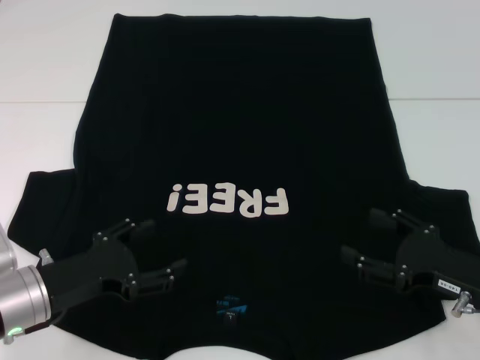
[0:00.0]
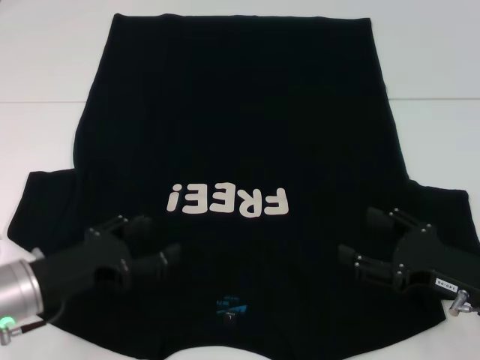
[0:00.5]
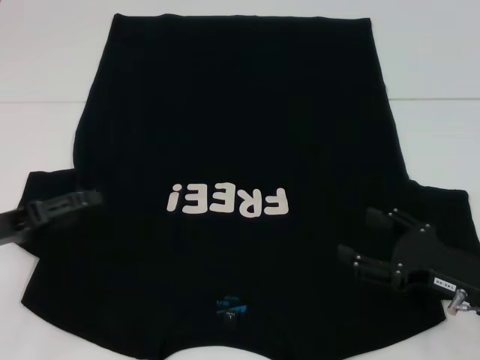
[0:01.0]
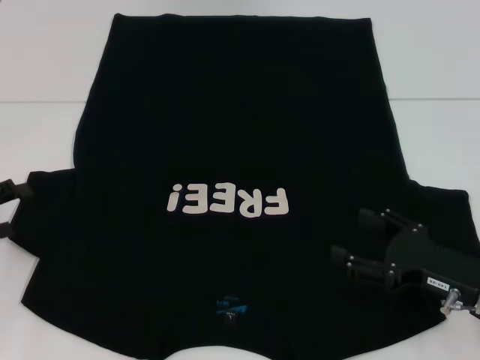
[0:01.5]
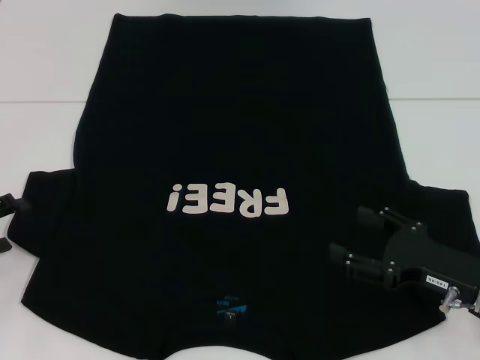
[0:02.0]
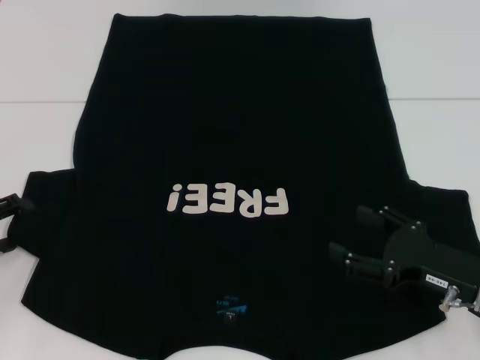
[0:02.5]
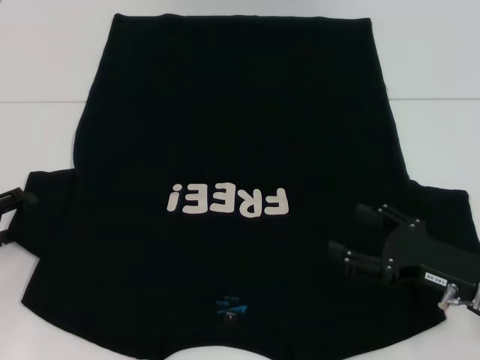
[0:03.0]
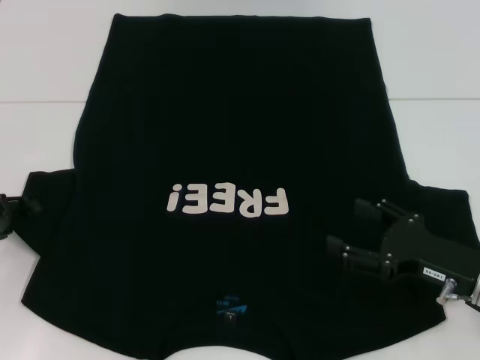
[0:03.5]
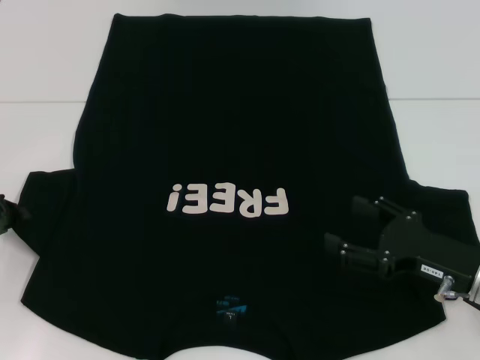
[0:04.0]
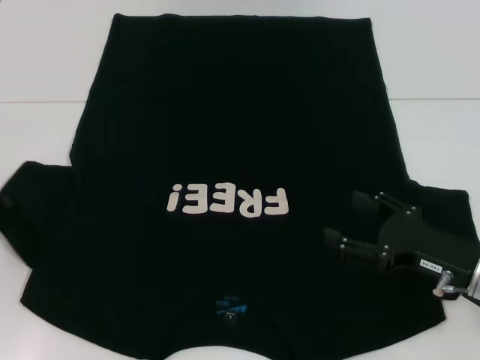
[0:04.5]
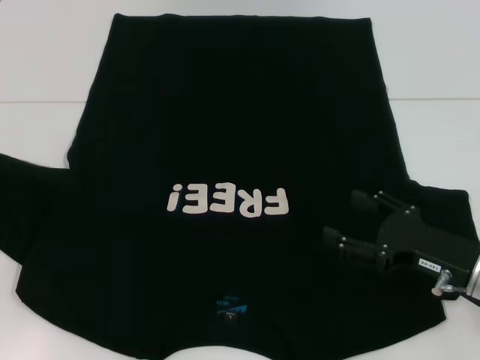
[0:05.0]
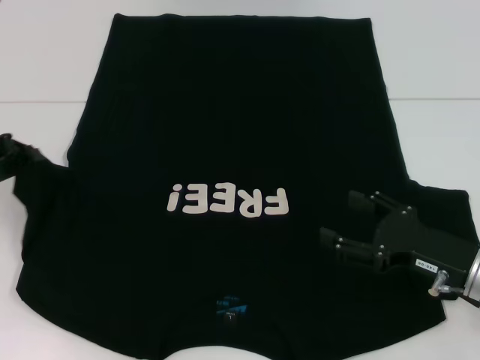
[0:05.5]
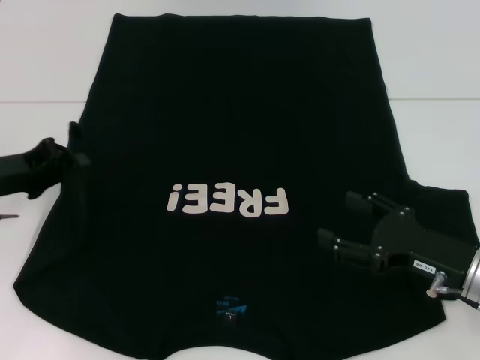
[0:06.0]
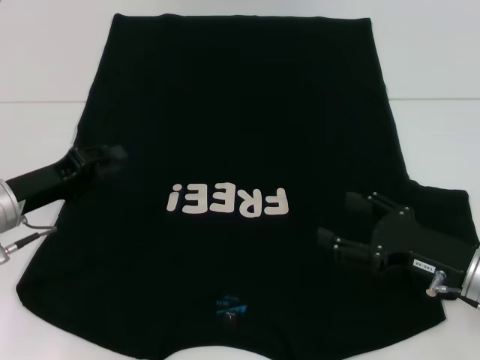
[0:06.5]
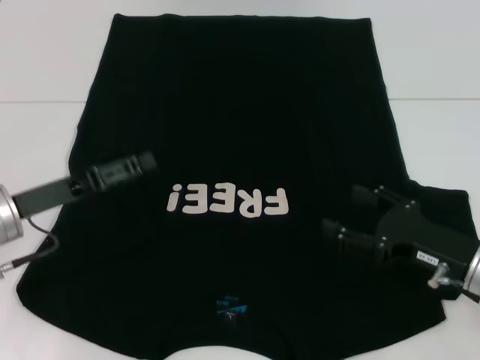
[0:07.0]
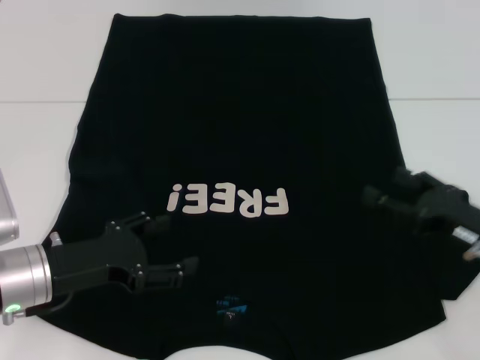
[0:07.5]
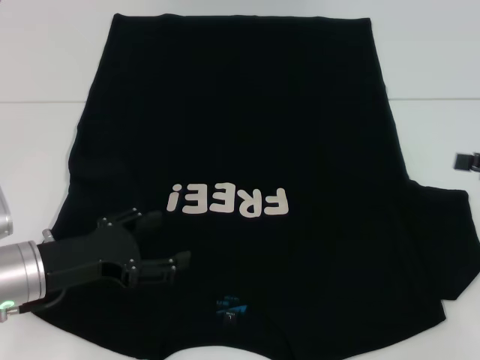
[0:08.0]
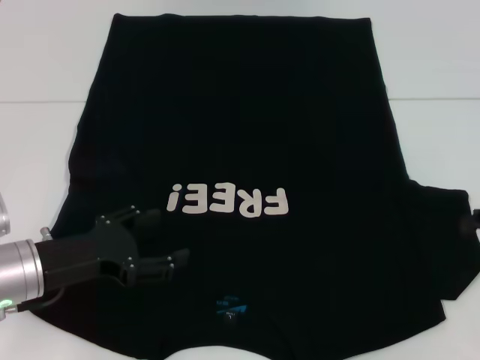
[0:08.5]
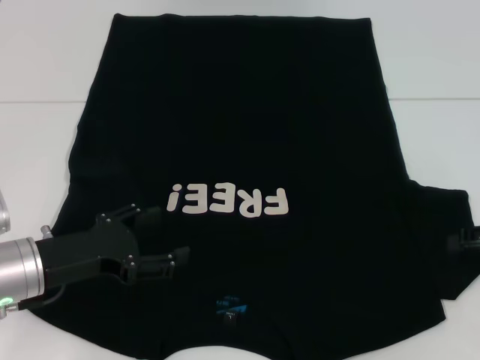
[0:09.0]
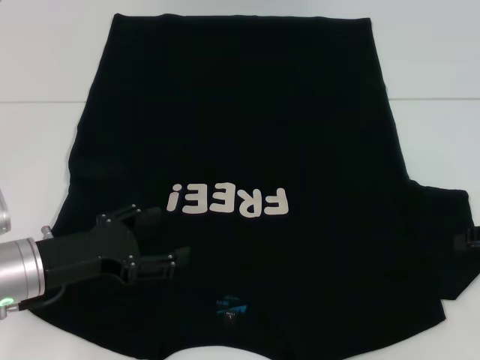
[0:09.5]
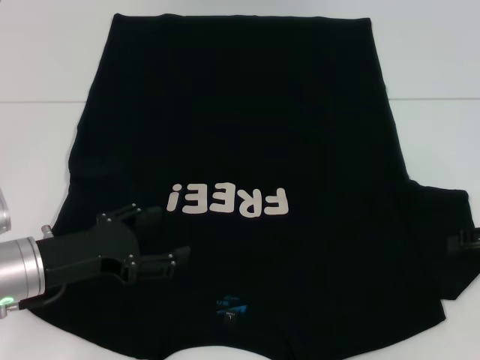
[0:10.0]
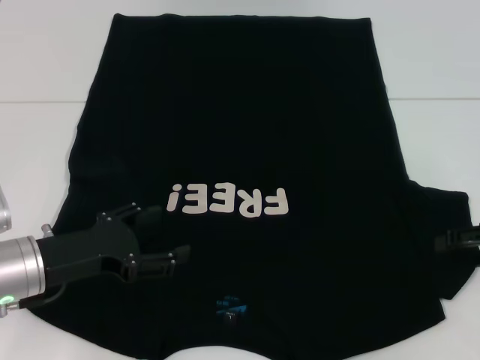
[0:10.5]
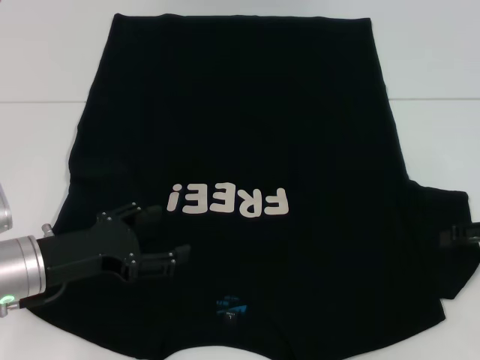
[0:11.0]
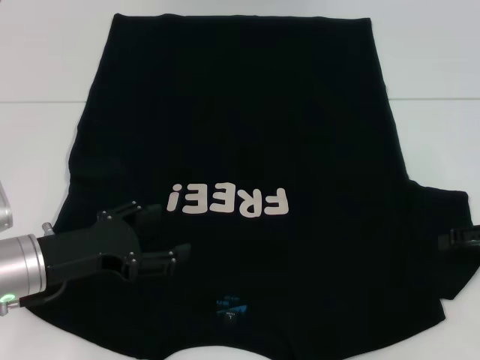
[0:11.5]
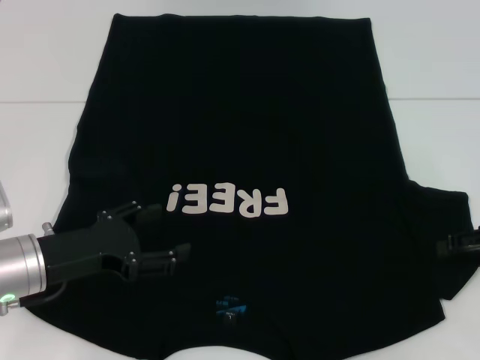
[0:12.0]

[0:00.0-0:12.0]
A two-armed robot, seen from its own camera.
Step, 0:00.0 to 0:06.5: Fold the bottom left sleeve with your left hand.
0:00.0 to 0:02.0: The left gripper travels to the left by approximately 15 cm.
0:04.0 to 0:06.0: The left gripper changes place by some 5 cm.
0:06.0 to 0:08.0: The right gripper goes about 15 cm to the right and upward. The left gripper goes roughly 10 cm backward and to the right, and opens.
0:10.0 to 0:12.0: Both grippers stay about where they are.

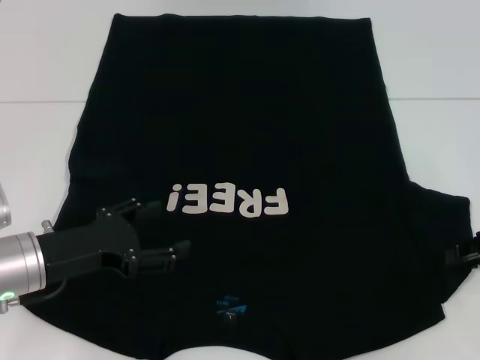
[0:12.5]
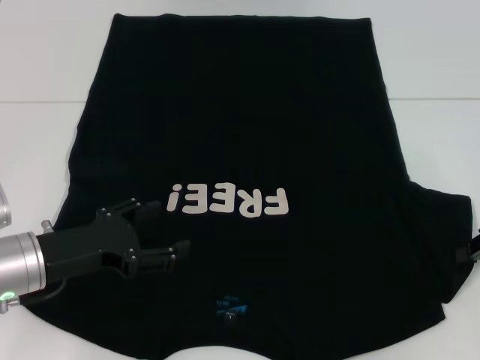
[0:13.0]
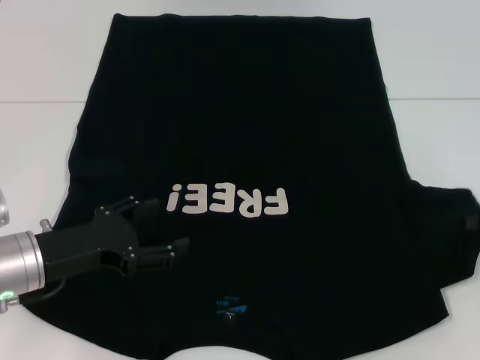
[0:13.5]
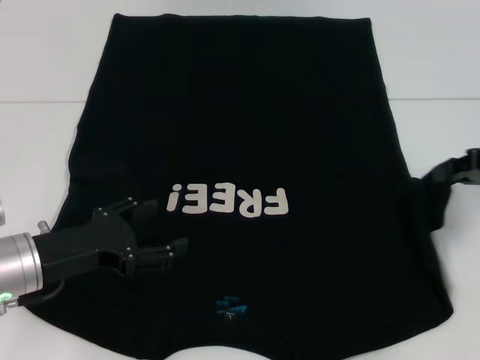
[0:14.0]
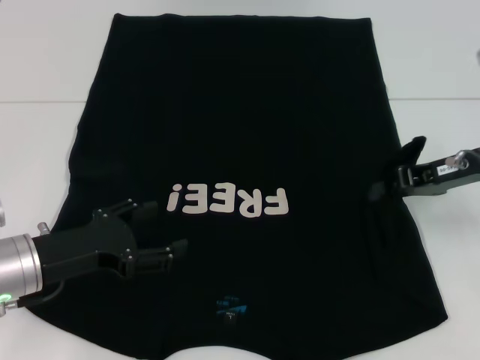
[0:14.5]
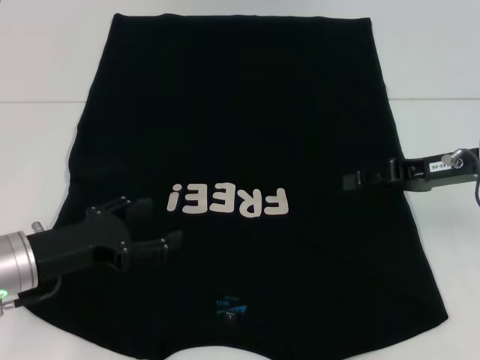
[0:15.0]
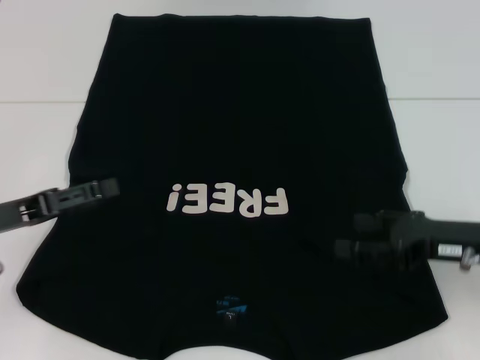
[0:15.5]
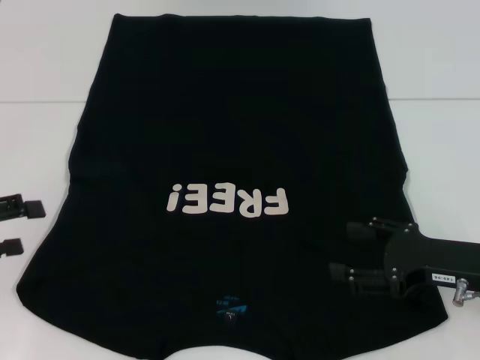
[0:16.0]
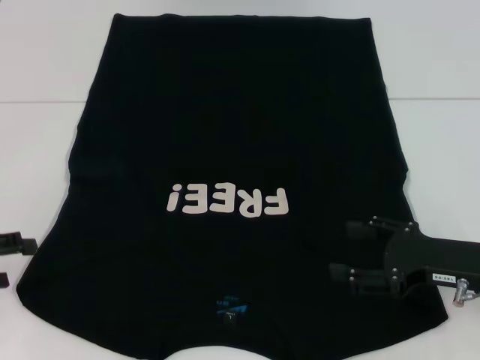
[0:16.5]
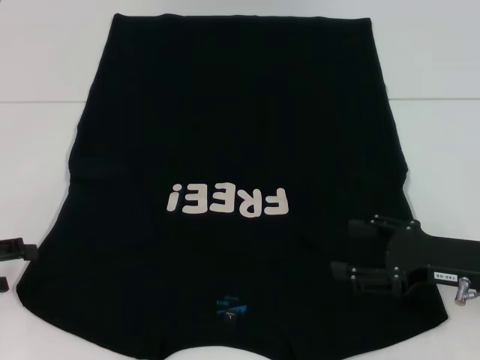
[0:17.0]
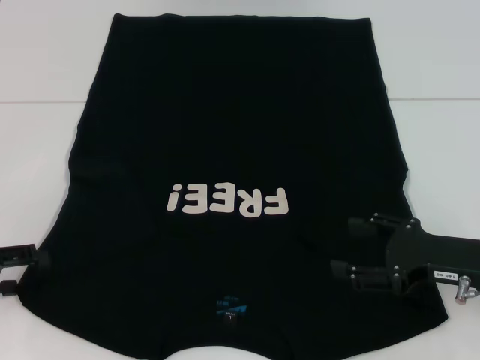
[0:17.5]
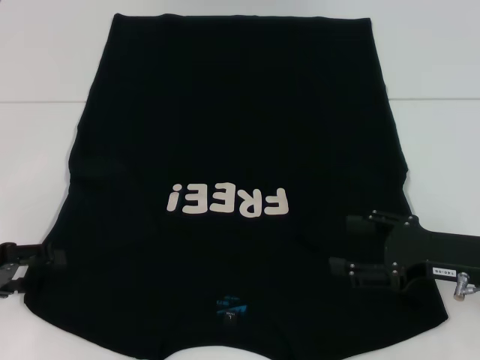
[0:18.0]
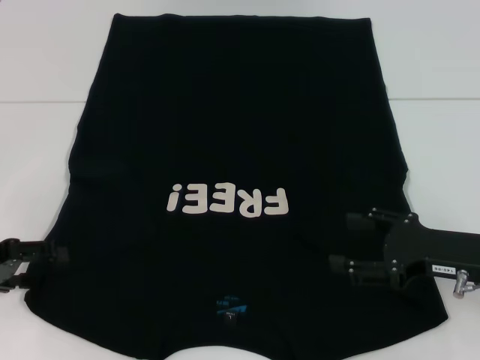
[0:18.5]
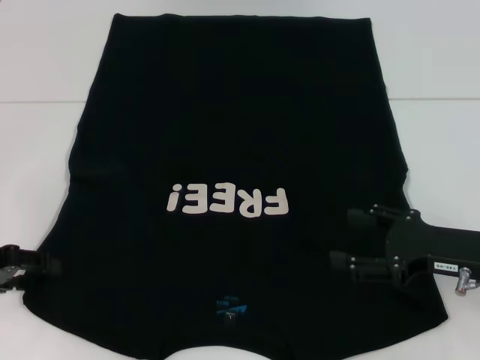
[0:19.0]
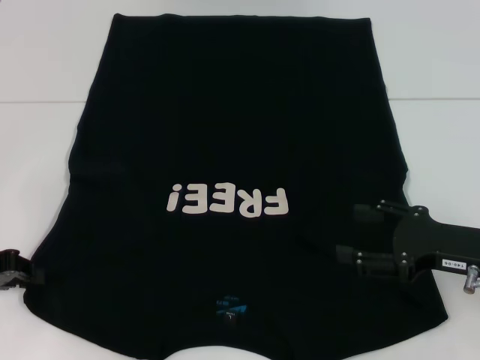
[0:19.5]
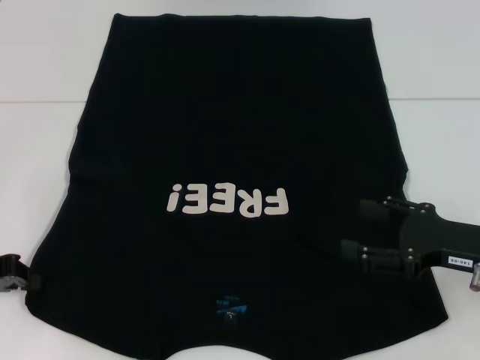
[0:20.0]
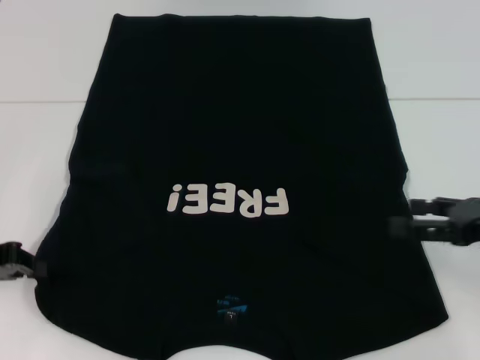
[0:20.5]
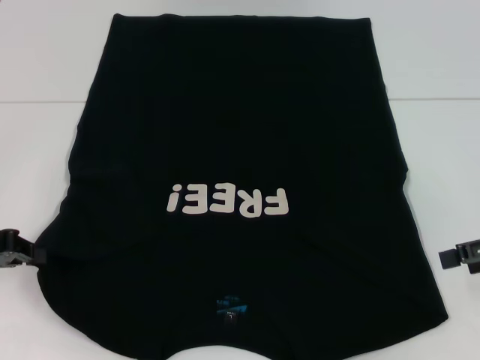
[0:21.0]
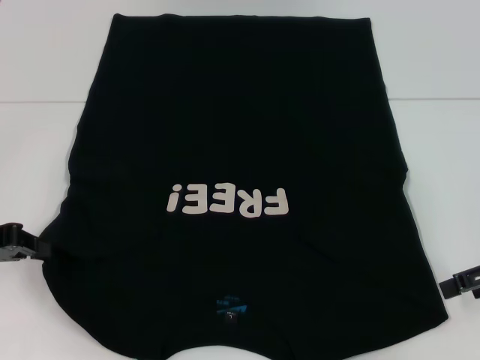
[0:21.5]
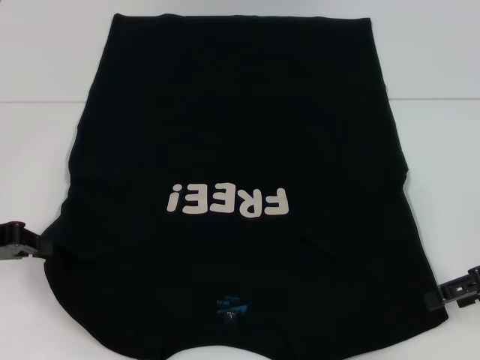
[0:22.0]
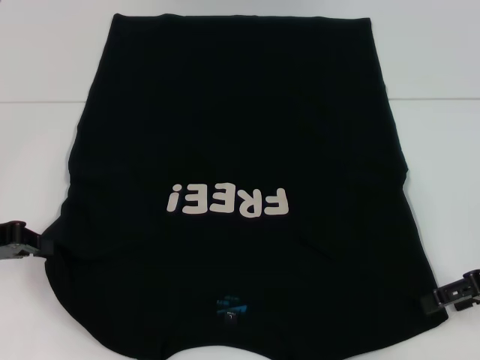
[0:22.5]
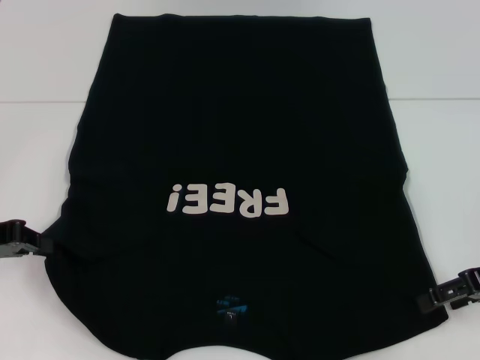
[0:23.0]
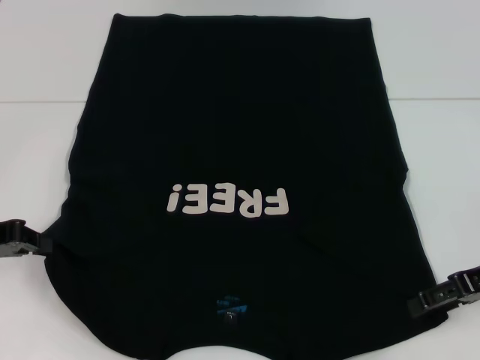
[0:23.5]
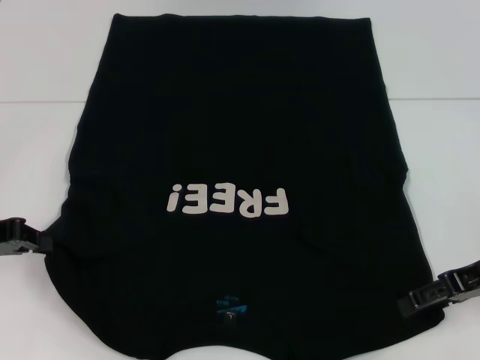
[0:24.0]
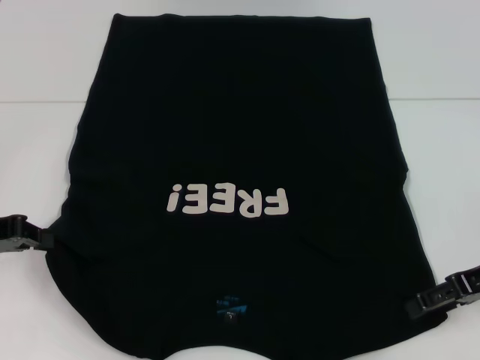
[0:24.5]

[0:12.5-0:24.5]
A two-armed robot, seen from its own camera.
Step, 0:12.5 to 0:15.0: Fold the bottom right sleeve with your right hand.
Step, 0:15.5 to 0:20.0: Grab the bottom left corner with your left hand.
0:12.5 to 0:14.5: The right gripper is displaced to the left and forward by about 10 cm, and closes its fingers.
0:14.5 to 0:16.5: The right gripper shifts roughly 15 cm backward and downward, and opens its fingers. The left gripper goes about 15 cm to the left.
0:16.5 to 0:18.5: The grippers move only a little.
0:18.5 to 0:20.5: The right gripper heads to the right, covering approximately 5 cm. The left gripper closes up.
0:22.5 to 0:24.5: The grippers move only a little.

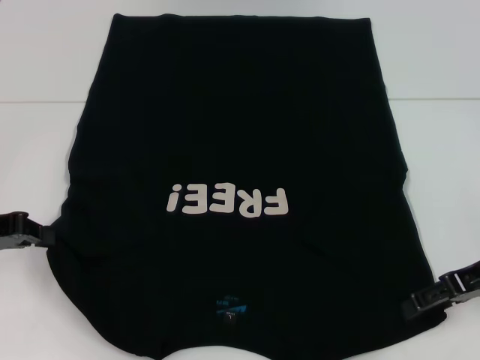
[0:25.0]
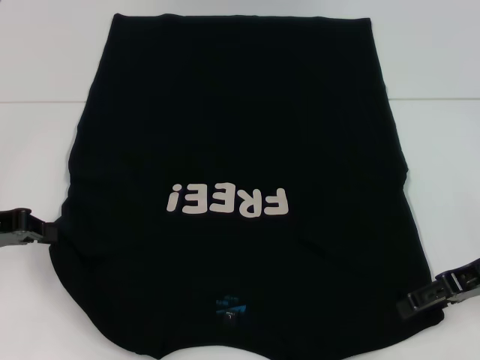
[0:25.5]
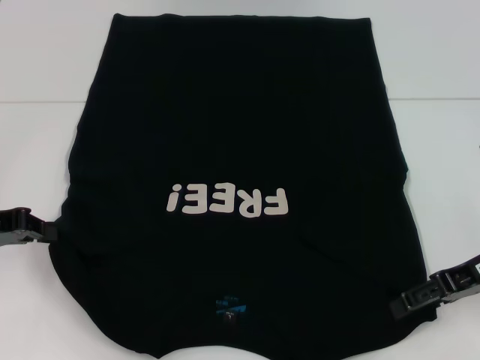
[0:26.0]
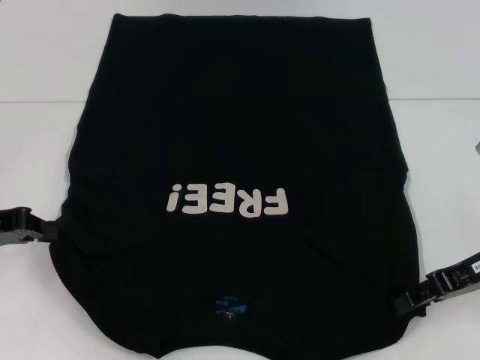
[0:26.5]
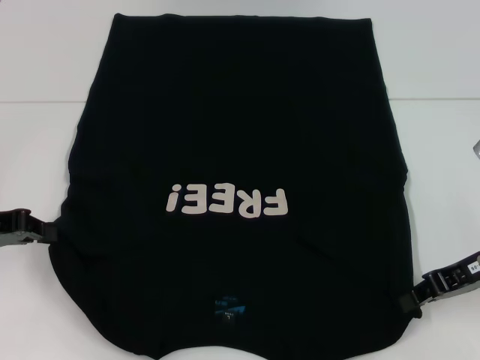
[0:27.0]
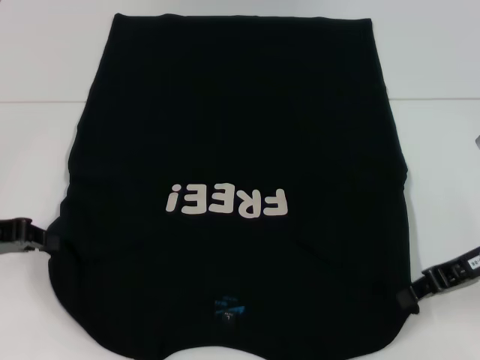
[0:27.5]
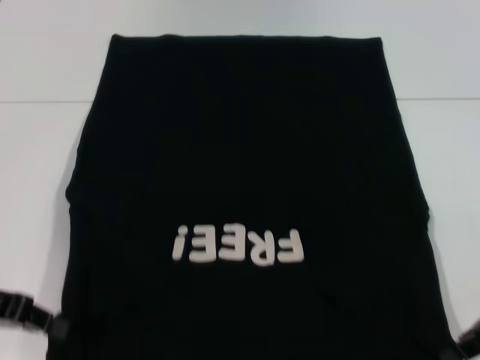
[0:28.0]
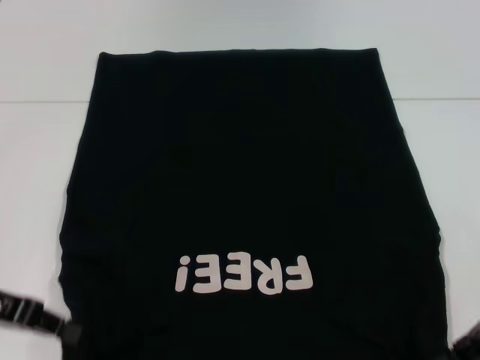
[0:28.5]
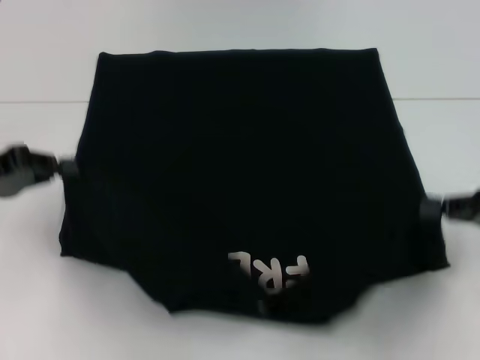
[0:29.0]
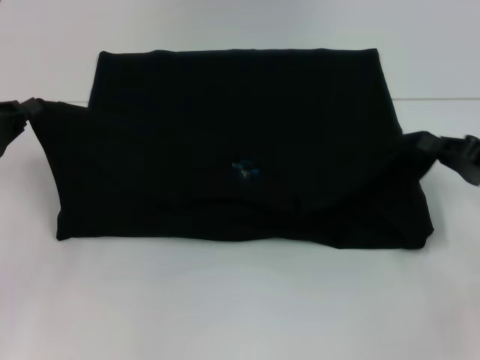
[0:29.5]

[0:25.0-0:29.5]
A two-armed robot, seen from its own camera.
Step, 0:25.0 to 0:27.0: Grab the bottom right corner with your right hand.
0:25.0 to 0:27.0: The right gripper closes its fingers.
